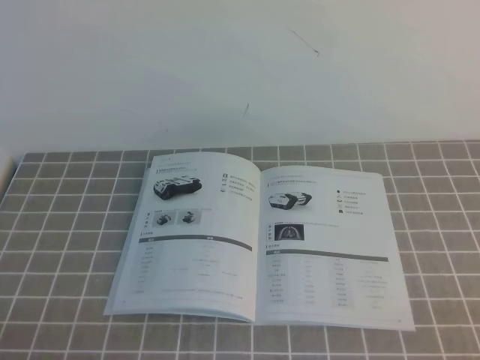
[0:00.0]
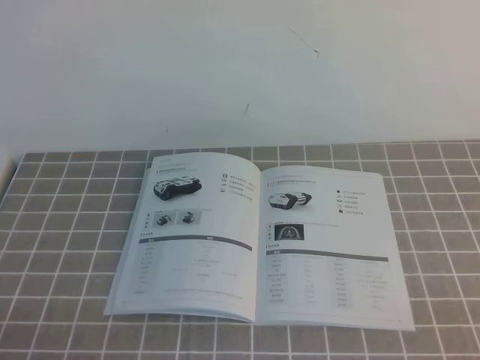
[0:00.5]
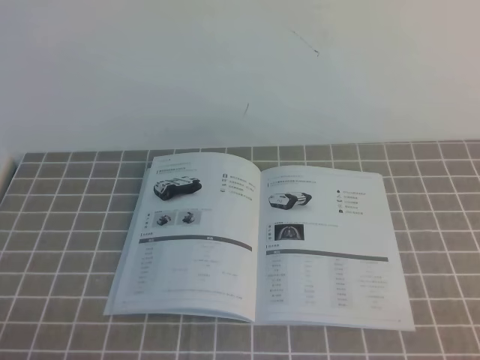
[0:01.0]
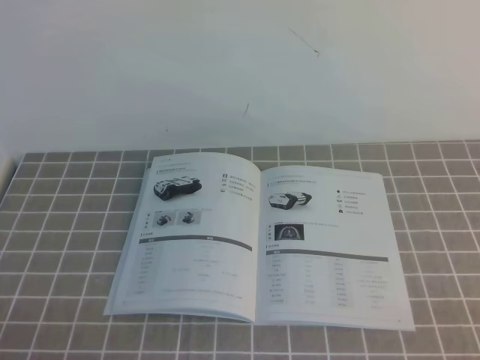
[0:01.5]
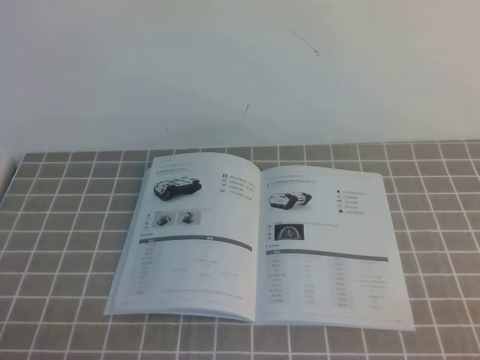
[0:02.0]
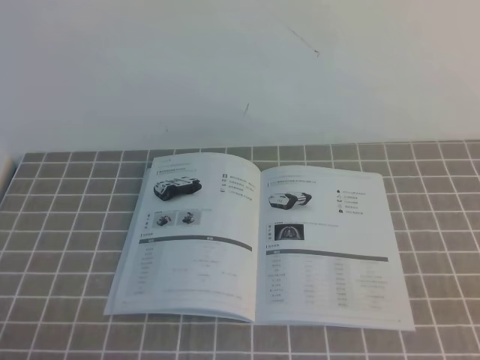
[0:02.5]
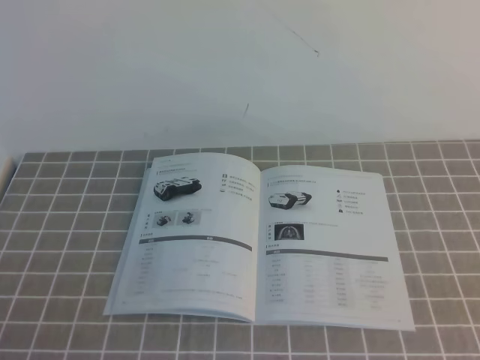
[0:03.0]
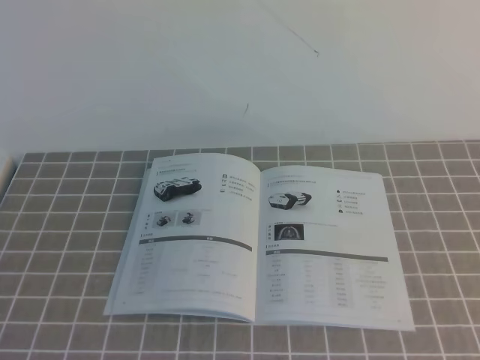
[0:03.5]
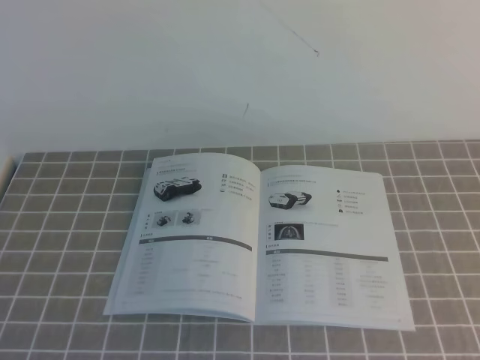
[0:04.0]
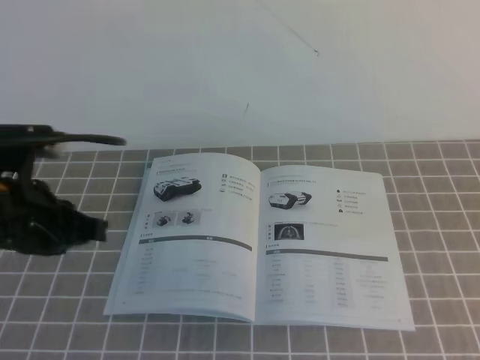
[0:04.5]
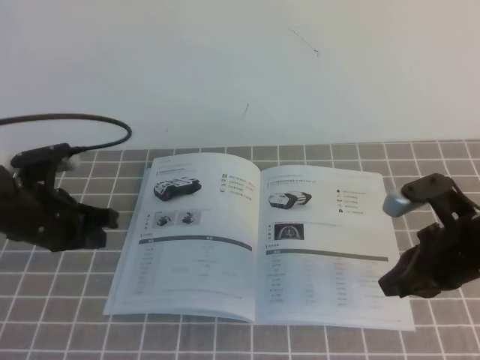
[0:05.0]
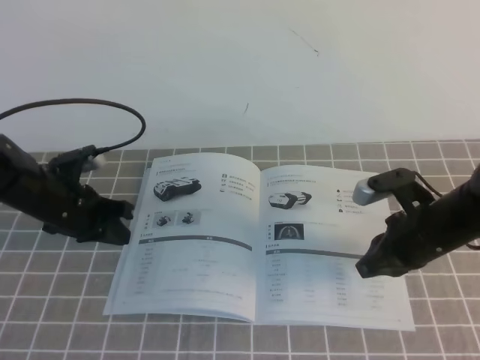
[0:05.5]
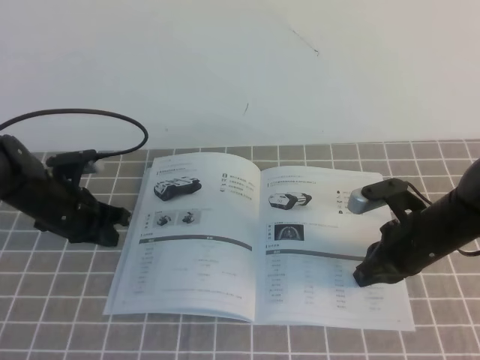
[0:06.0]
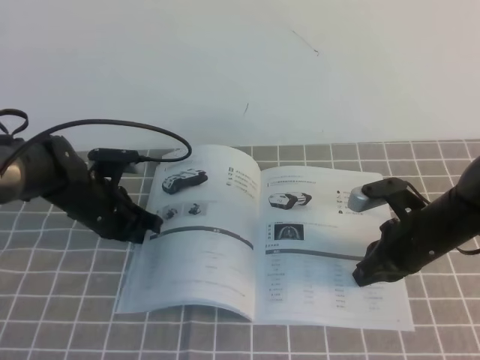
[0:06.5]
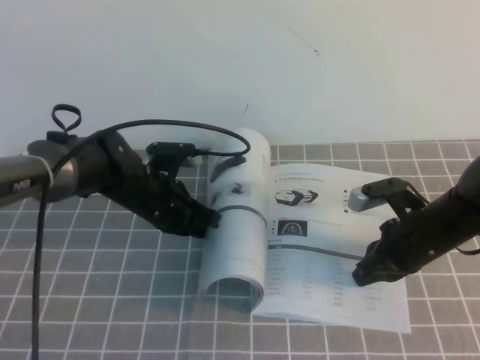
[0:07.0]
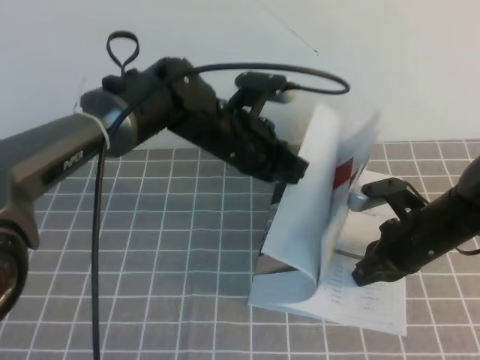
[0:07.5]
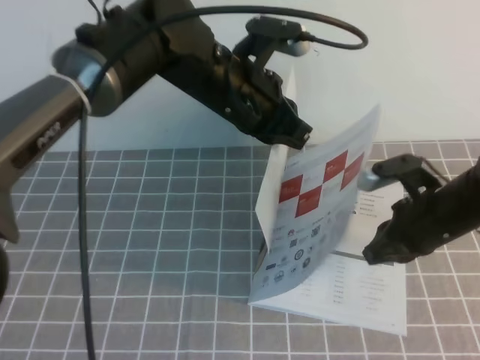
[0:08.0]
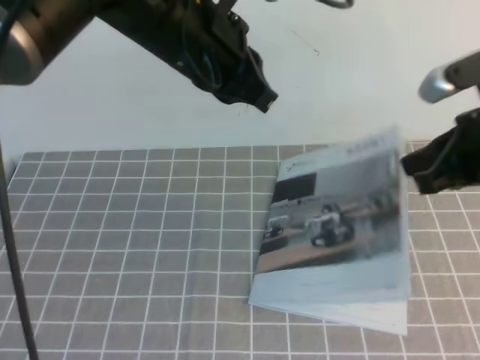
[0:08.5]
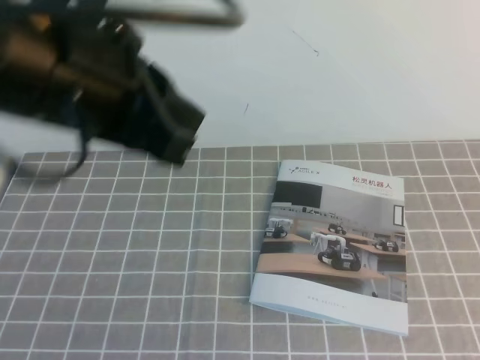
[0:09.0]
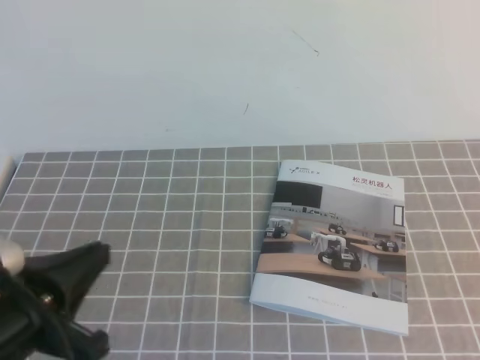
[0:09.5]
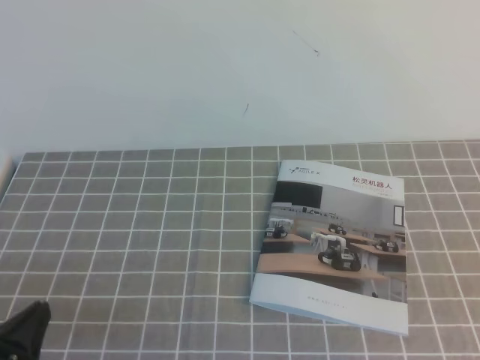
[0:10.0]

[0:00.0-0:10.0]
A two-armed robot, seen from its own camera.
Task of the whole recording: on the grey tablecloth, hold the book with one hand and close it with the other.
0:04.0 to 0:06.0: The left gripper is displaced forward and downward by roughly 35 cm. The right gripper moves downward, forward and to the left, about 35 cm.
0:06.0 to 0:08.0: The left gripper is displaced to the right and upward by some 30 cm.
0:08.0 to 0:10.0: The right gripper moves backward, upward and to the right, some 25 cm. The left gripper is displaced backward, to the left and downward by approximately 35 cm.

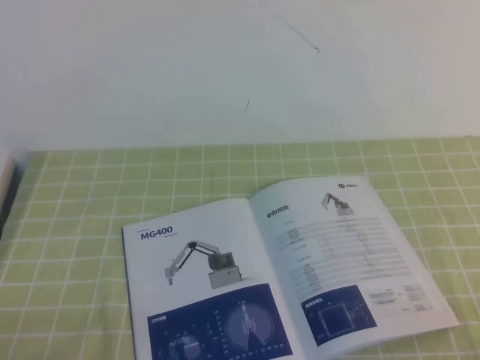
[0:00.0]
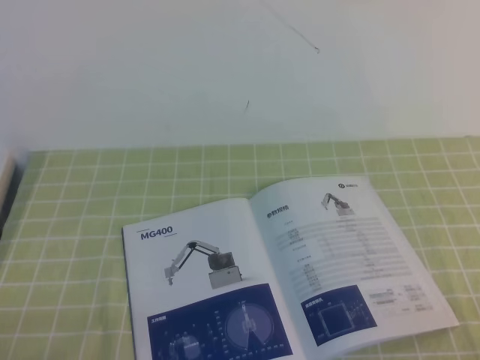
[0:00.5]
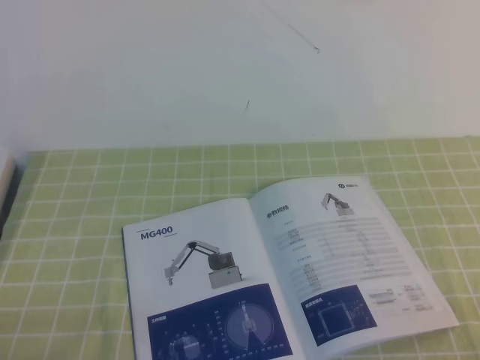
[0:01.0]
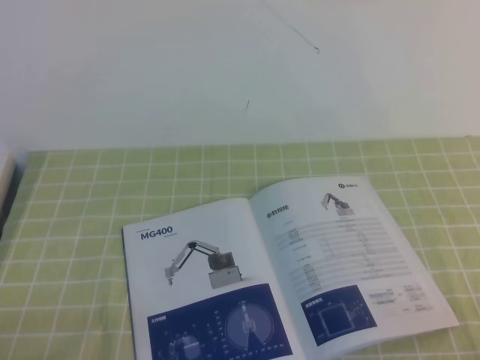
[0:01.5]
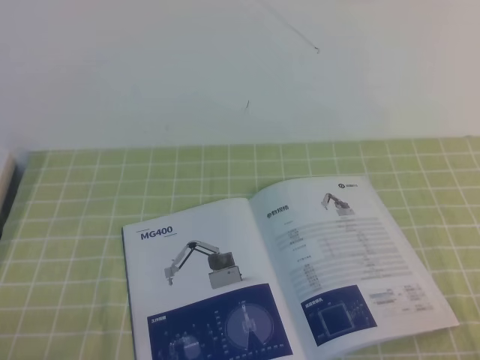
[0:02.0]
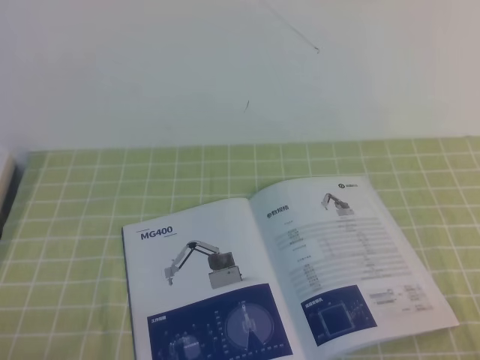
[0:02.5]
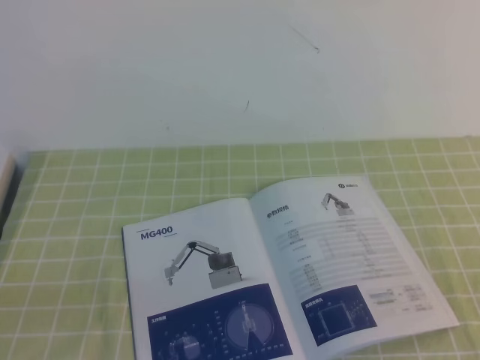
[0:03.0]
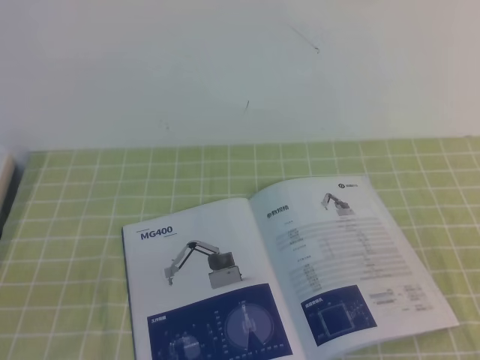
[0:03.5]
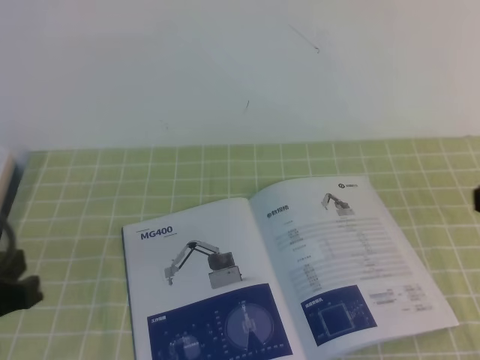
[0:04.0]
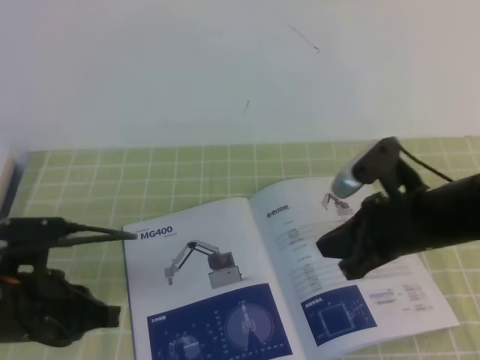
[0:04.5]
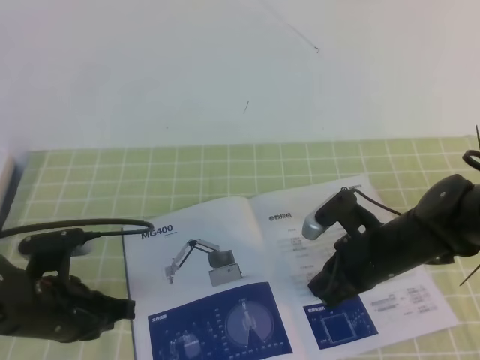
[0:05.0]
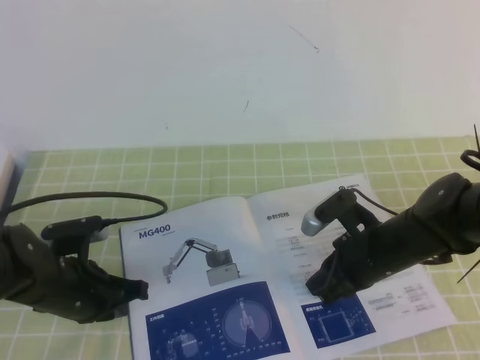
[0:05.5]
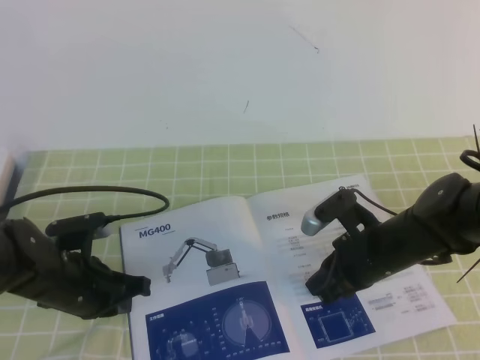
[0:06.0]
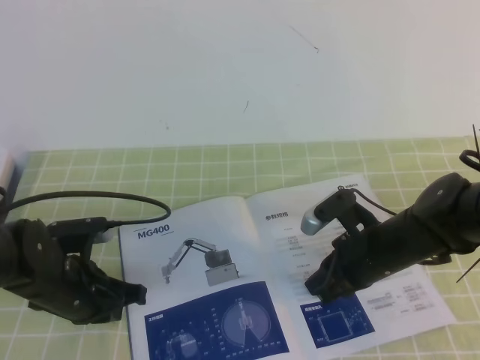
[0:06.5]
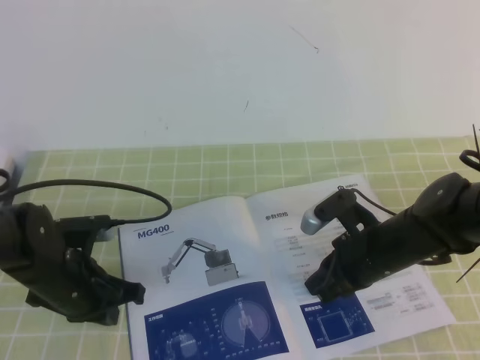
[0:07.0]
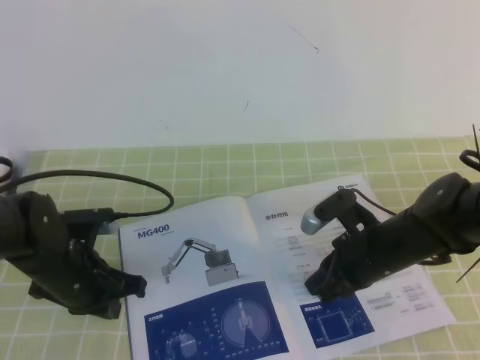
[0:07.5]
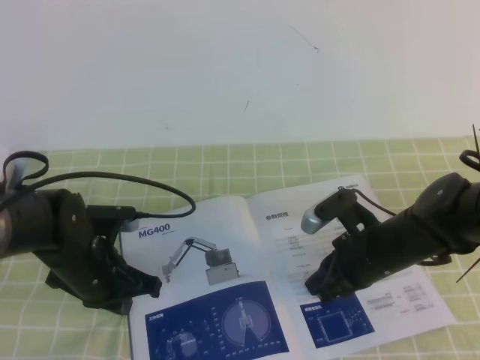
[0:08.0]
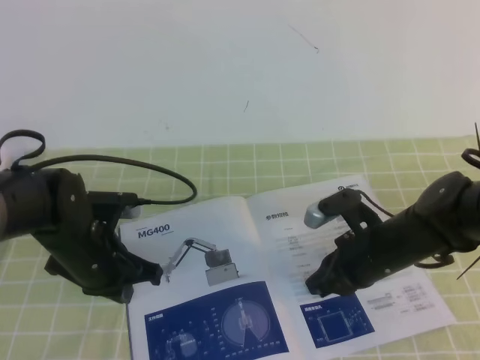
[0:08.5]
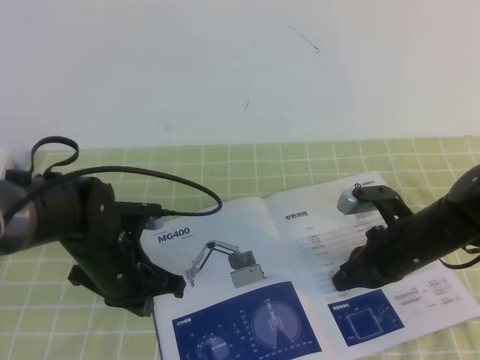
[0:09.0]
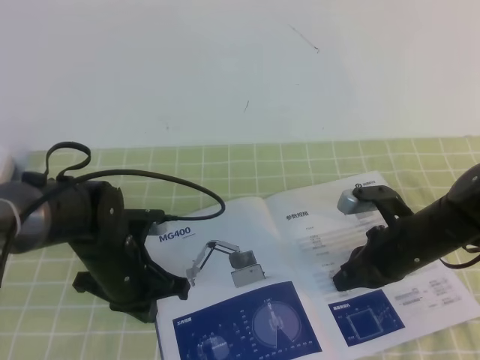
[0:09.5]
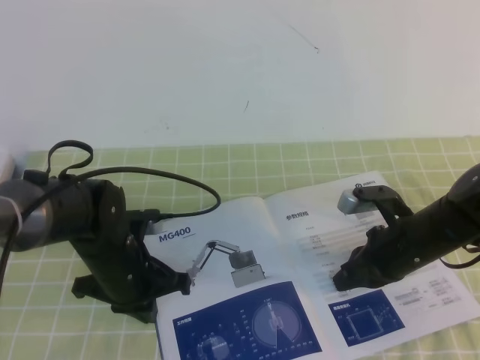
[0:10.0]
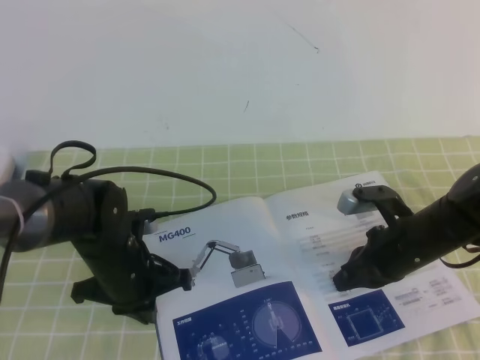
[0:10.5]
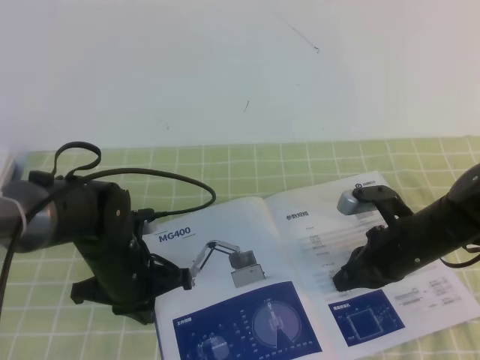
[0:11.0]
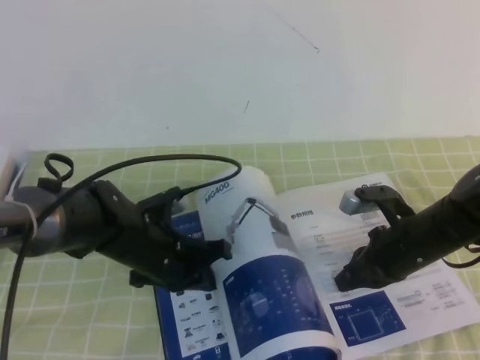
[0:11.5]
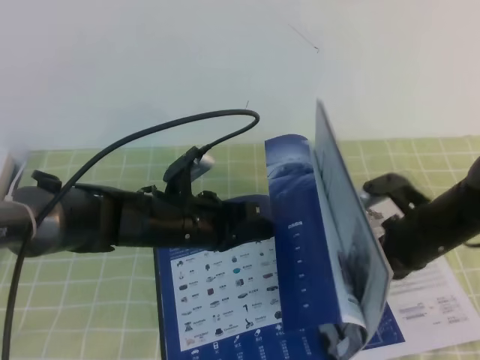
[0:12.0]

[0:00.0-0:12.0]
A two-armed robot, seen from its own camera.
Task of the whole recording: on the green tablecloth, hold the book with one hand and close it with the other.
0:00.0 to 0:02.0: Neither gripper changes place.
0:02.0 to 0:04.0: The left gripper goes about 15 cm upward and forward.
0:04.0 to 0:06.0: The right gripper shifts approximately 30 cm downward, forward and to the left, while the left gripper heads downward and forward, covering roughly 25 cm.
0:06.0 to 0:08.0: The grippers make only small movements.
0:10.0 to 0:12.0: The left gripper moves to the right, approximately 5 cm.

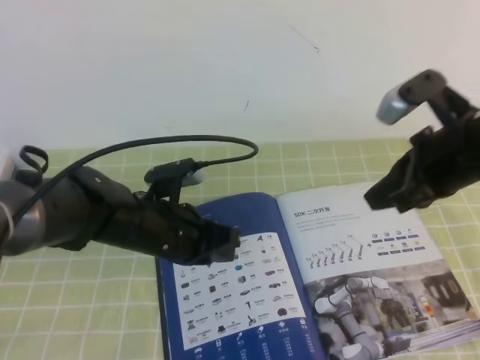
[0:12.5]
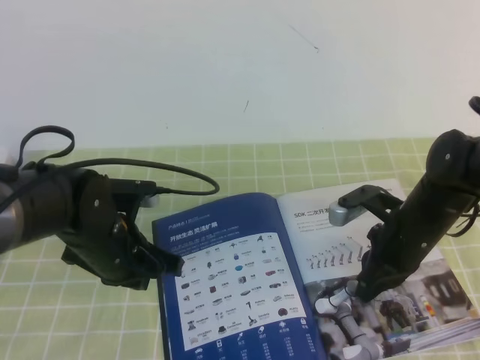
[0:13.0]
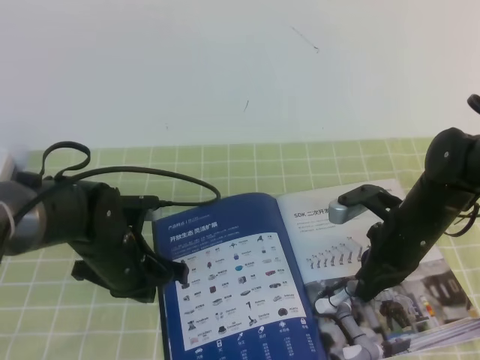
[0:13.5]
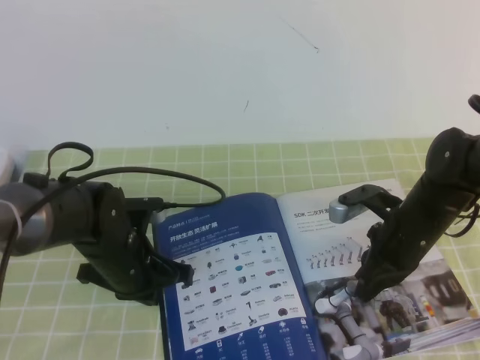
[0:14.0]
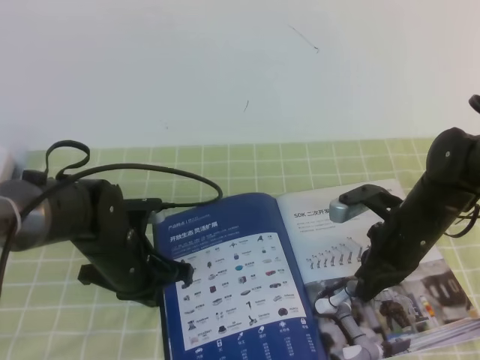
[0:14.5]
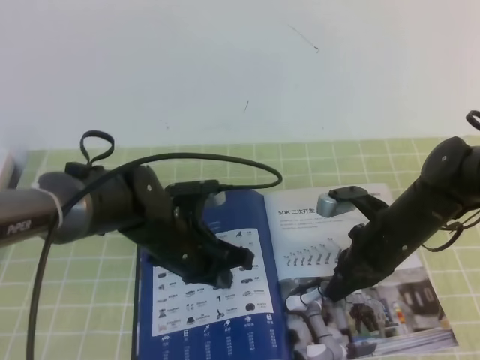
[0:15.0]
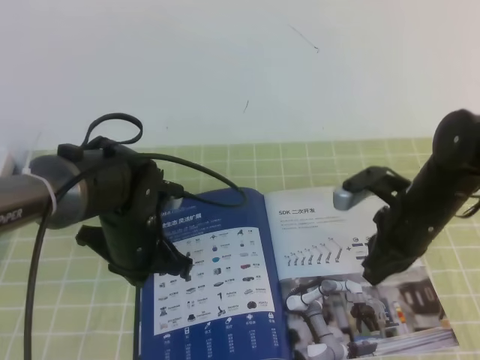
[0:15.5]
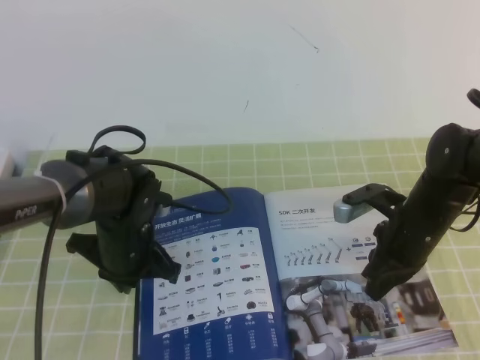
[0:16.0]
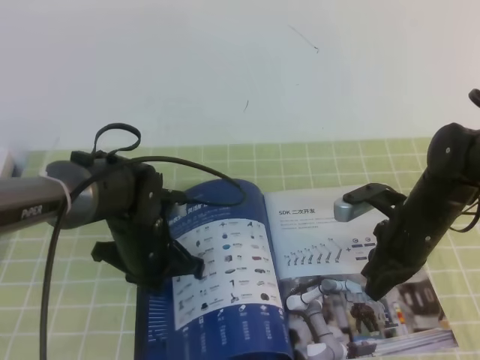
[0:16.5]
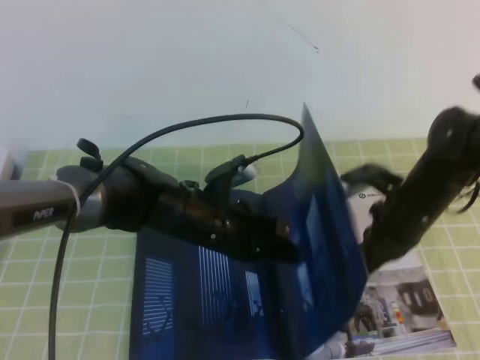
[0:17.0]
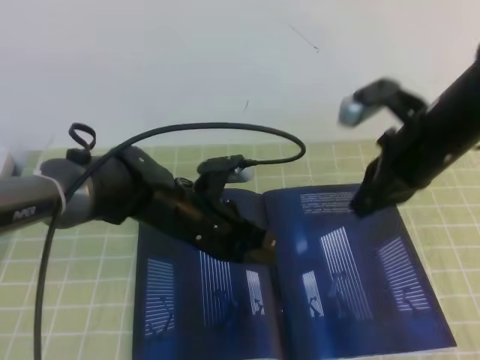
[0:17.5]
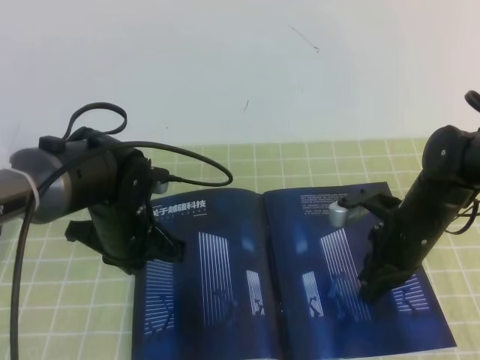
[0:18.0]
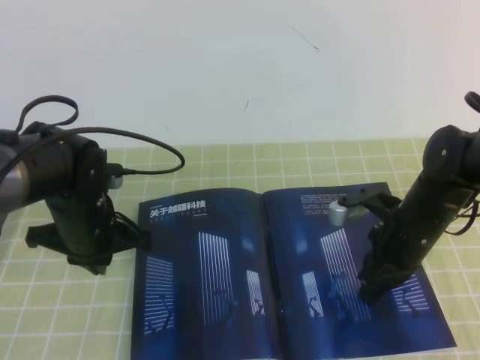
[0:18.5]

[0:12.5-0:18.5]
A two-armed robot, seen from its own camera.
Task of the whole recording: on the green tablecloth, hold the book with one hand and close it with the other.
0:12.5 to 0:14.5: The left gripper ends up roughly 5 cm from where it was; the right gripper travels downward by approximately 15 cm.
0:16.5 to 0:18.5: The right gripper goes upward and returns, approximately 15 cm each way. Meanwhile the left gripper moves to the left, some 5 cm.
